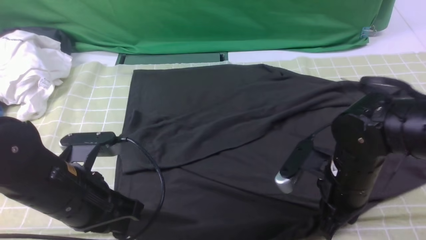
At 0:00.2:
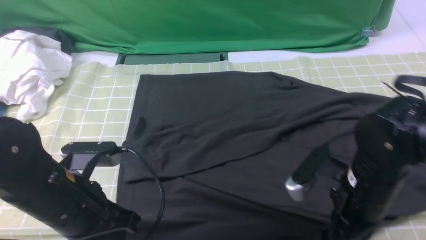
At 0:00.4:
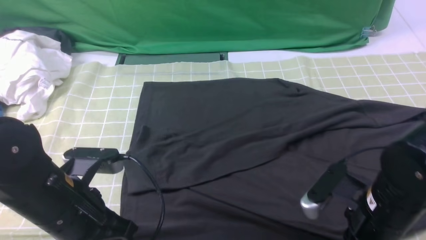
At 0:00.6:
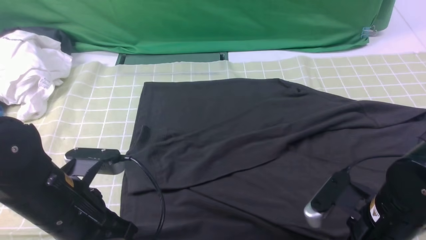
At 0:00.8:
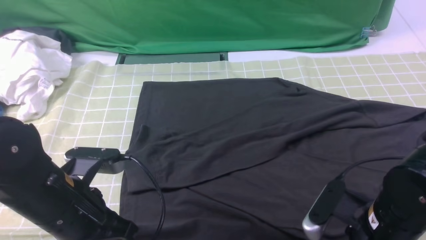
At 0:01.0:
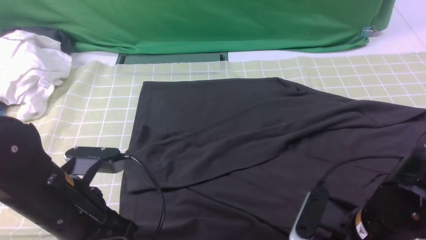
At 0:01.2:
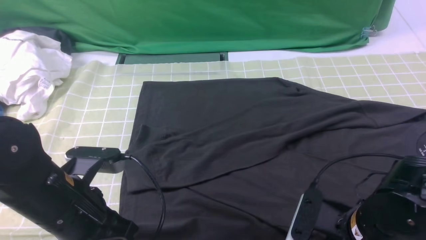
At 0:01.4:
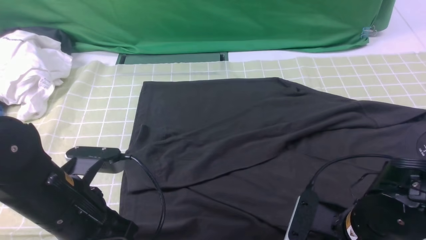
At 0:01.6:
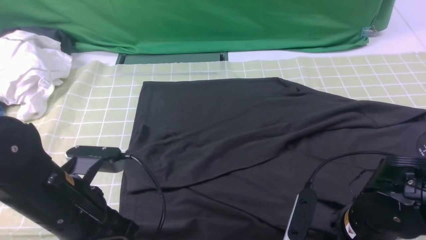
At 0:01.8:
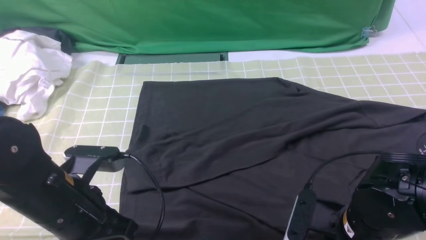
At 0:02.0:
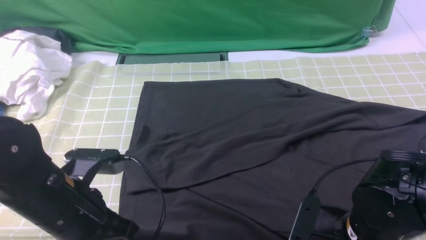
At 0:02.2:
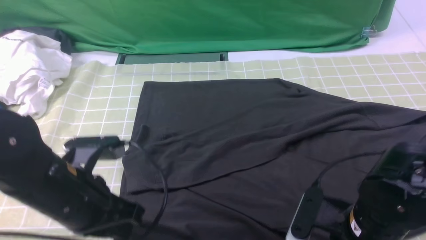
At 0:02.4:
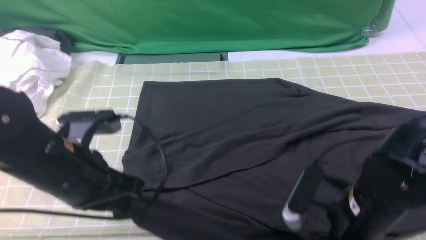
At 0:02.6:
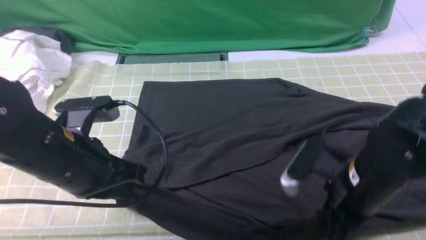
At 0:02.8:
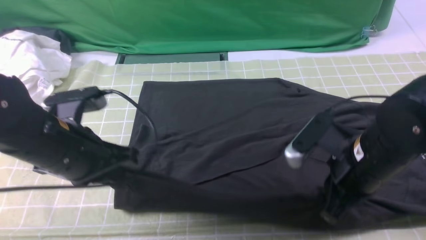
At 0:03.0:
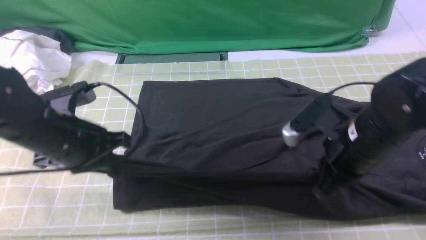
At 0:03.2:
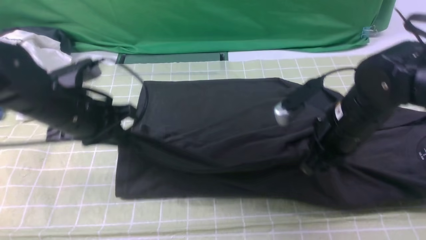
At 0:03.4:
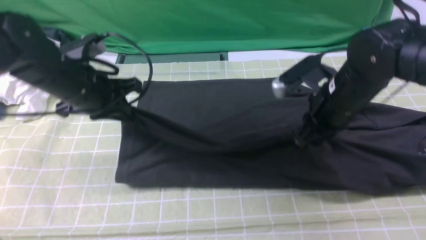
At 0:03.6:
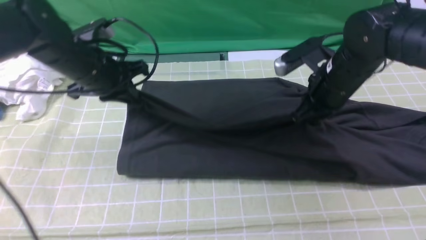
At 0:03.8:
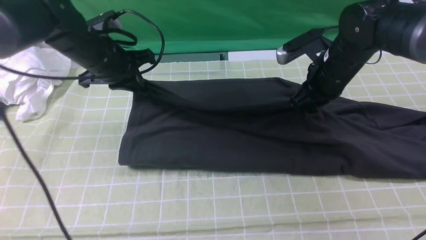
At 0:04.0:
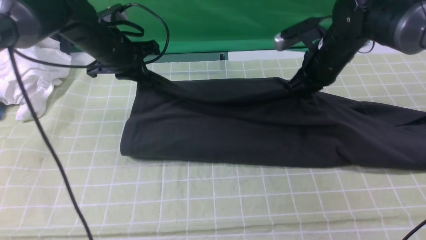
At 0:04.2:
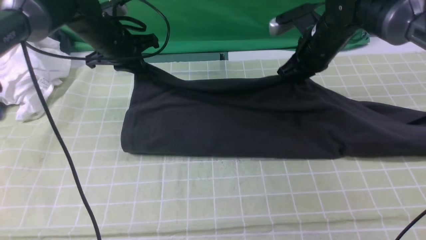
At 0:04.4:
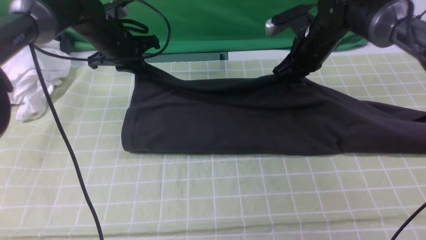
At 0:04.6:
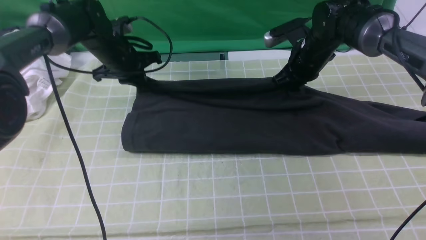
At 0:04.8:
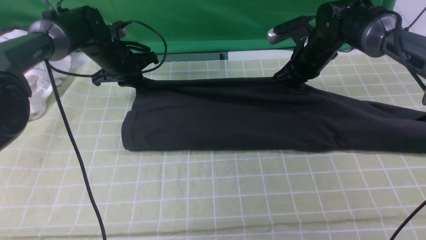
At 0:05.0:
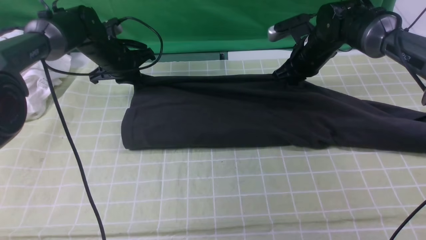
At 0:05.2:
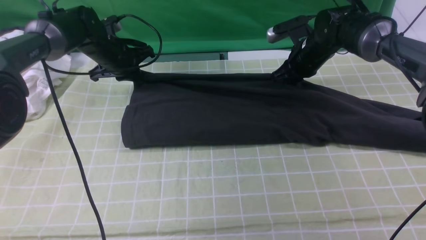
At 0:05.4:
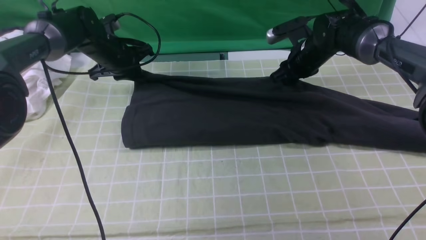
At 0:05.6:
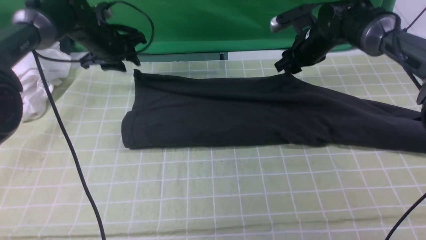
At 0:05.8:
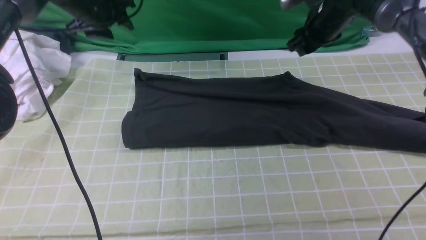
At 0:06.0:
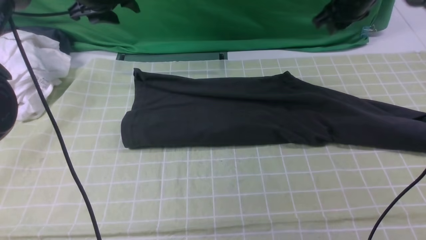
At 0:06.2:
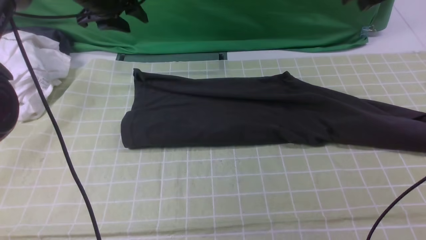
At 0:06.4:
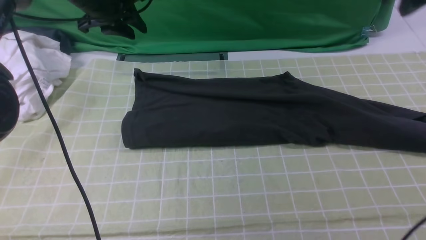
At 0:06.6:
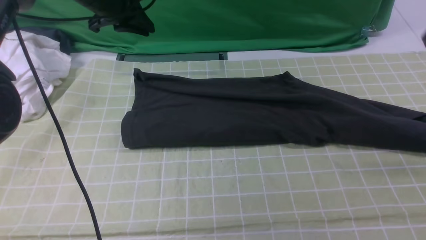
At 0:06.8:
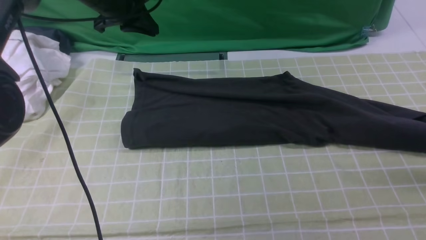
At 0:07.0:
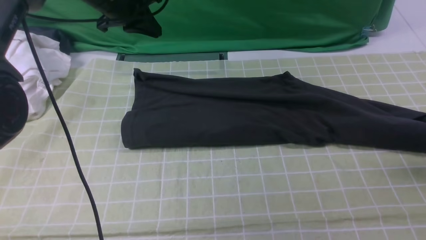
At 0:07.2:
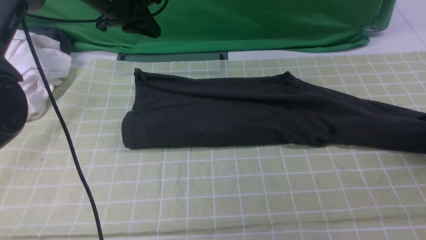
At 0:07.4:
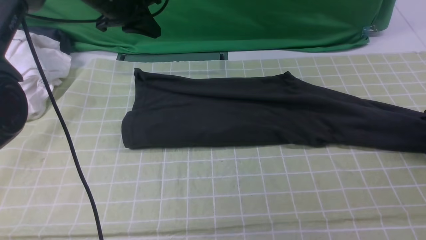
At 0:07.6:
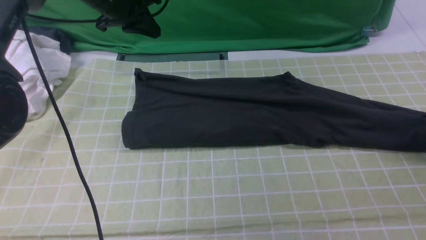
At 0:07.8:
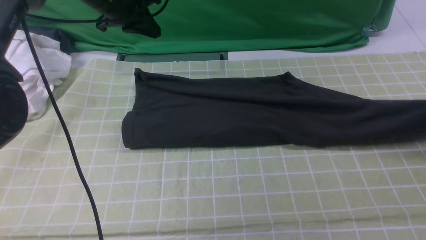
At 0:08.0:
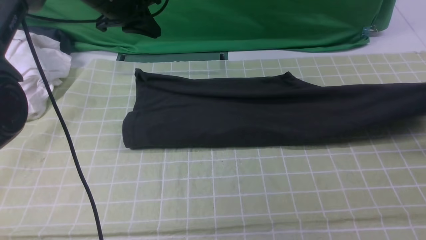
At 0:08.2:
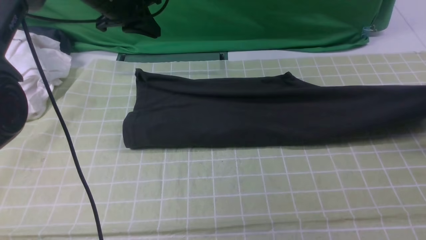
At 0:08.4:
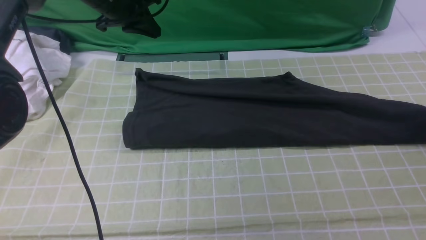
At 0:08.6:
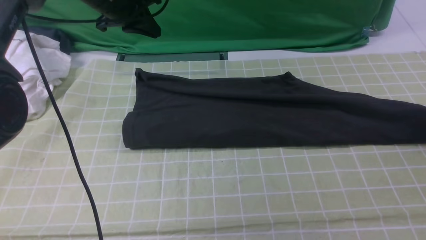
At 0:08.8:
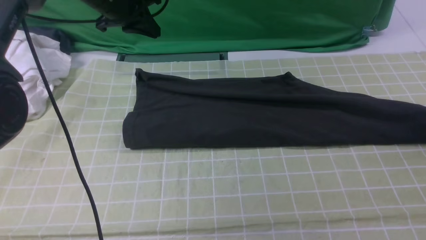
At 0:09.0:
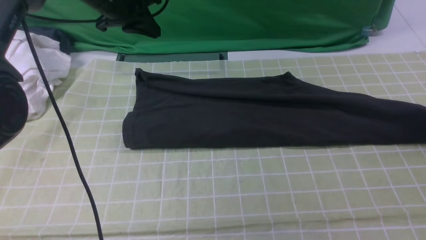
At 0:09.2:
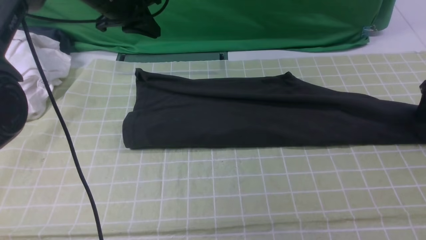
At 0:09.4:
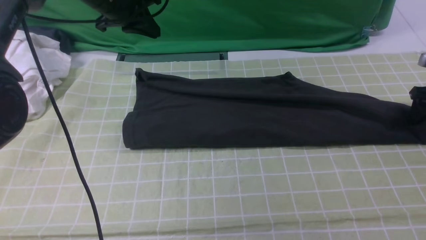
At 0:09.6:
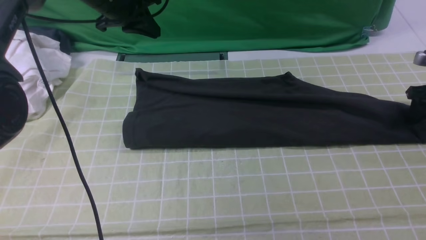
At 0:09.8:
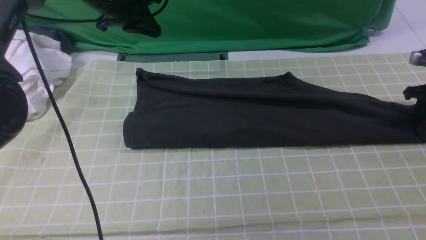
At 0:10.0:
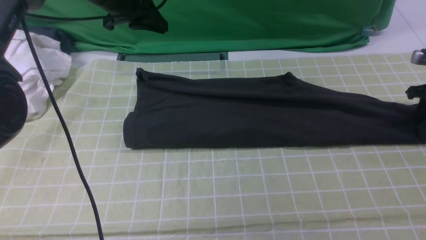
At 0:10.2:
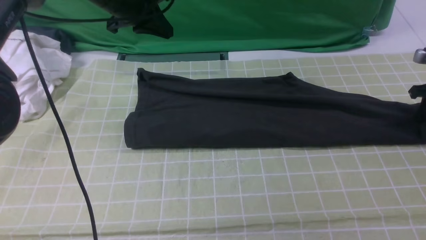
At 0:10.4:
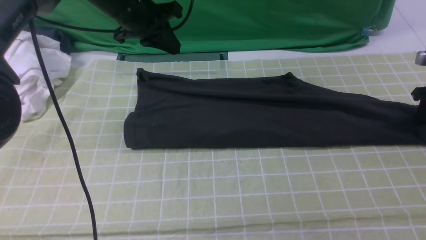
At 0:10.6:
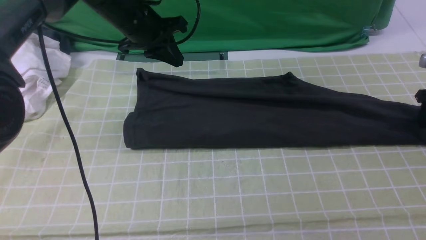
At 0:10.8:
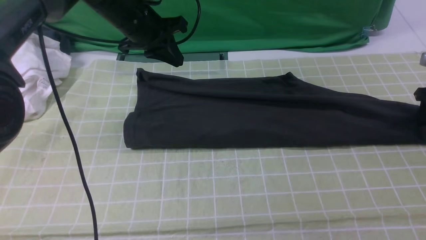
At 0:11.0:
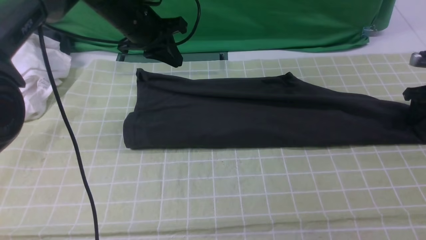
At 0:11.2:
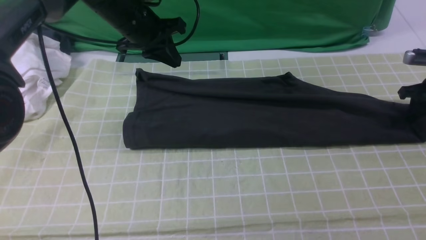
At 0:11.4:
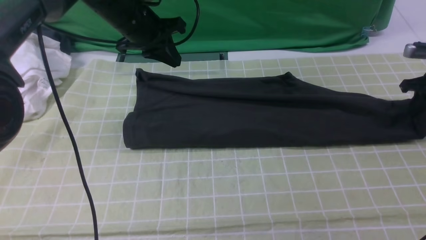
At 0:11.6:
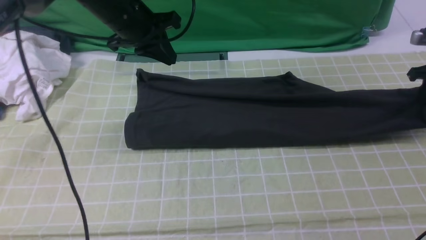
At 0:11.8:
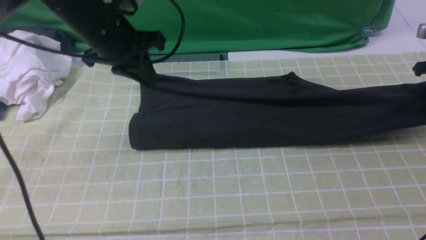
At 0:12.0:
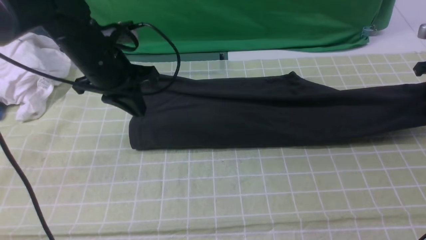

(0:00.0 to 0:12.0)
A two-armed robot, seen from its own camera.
Step, 0:00.0 - 0:02.0: use both arms simultaneously to clamp the lower edge of the clothing fabric.
Step, 0:02.2 - 0:05.6: use both arms to drag the lower edge of the fabric forward and fold it over the upper edge.
Step, 0:05.8 - 0:11.2: use the right arm to clamp the right edge of the fabric.
0:00.0 - 0:01.6: The right gripper goes some 5 cm backward, and opens, then closes once more.
0:01.6 - 0:03.0: The left gripper travels forward by about 10 cm; the right gripper travels forward and upward by roughly 10 cm.
0:03.0 - 0:04.4: Both grippers travel together forward, some 20 cm.
0:04.4 - 0:06.0: The left gripper travels upward by some 10 cm, and opens. Meanwhile the right gripper moves upward and to the right, roughly 10 cm, and opens, then closes again.
0:06.0 - 0:07.6: The right gripper is displaced to the right, backward and downward by about 25 cm. The left gripper closes.
0:07.6 - 0:09.0: The right gripper opens up.
0:09.0 - 0:10.4: The right gripper shifts by some 5 cm, and closes and opens again.
0:10.4 - 0:12.0: The left gripper is displaced backward by some 10 cm. The right gripper heads upward, covering about 5 cm, and closes up.

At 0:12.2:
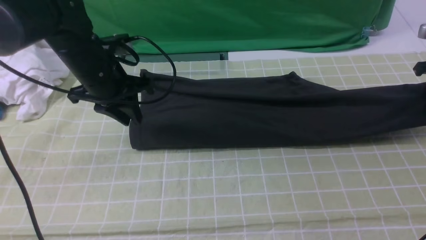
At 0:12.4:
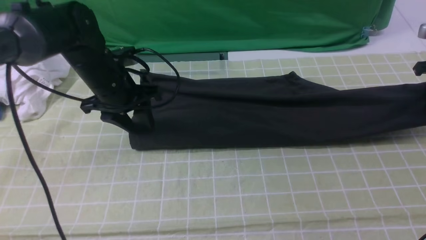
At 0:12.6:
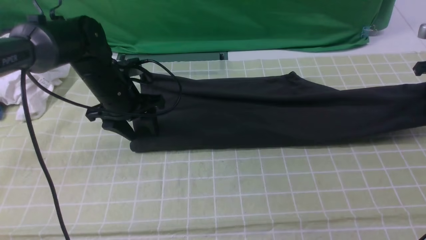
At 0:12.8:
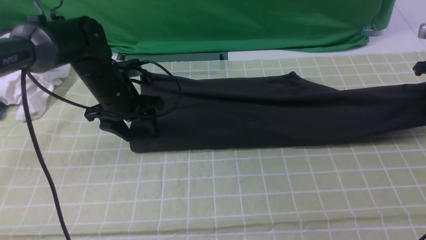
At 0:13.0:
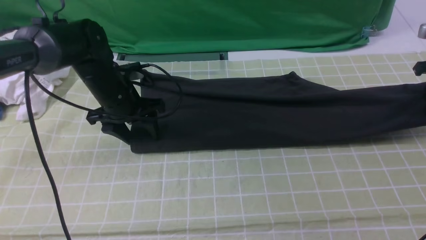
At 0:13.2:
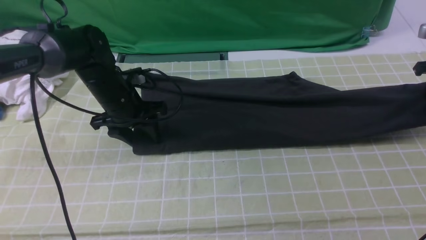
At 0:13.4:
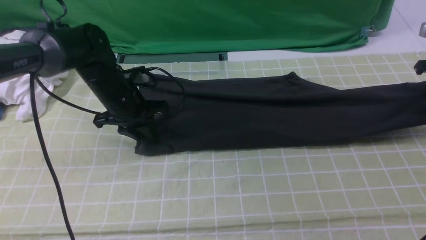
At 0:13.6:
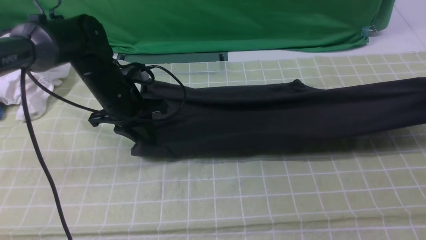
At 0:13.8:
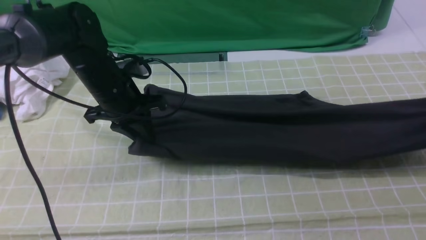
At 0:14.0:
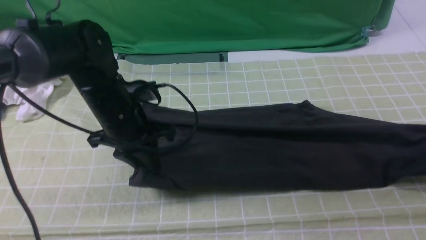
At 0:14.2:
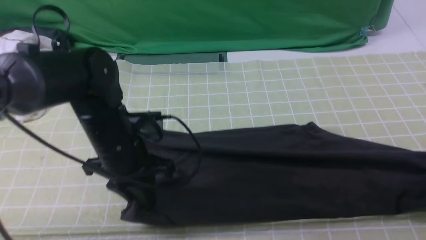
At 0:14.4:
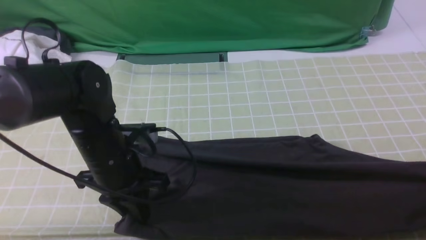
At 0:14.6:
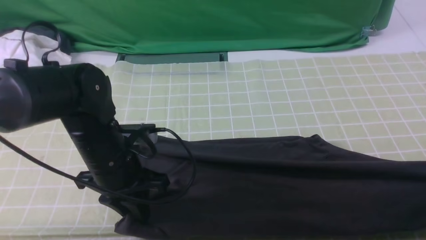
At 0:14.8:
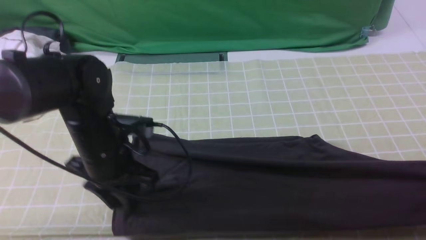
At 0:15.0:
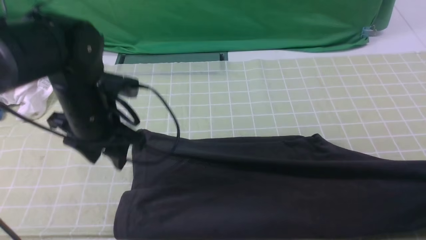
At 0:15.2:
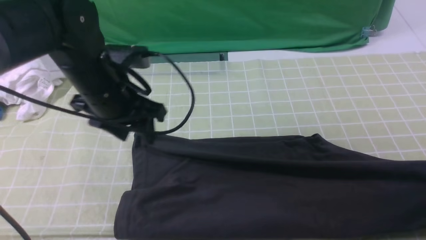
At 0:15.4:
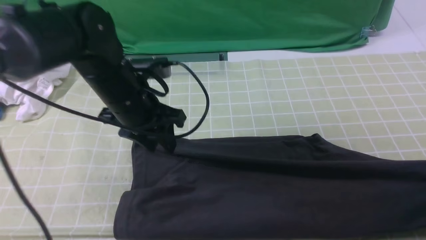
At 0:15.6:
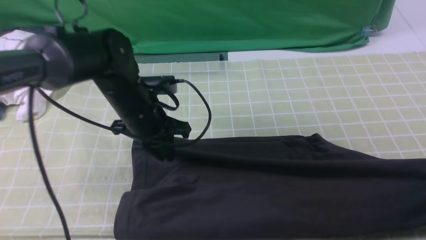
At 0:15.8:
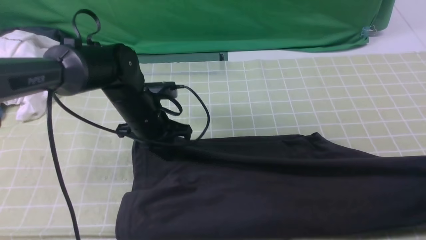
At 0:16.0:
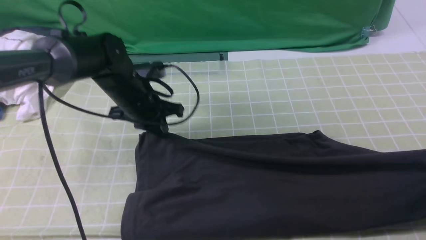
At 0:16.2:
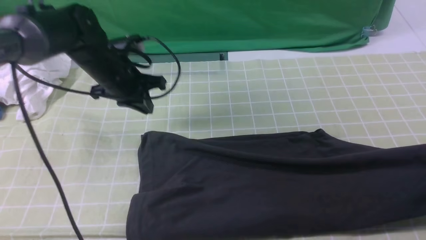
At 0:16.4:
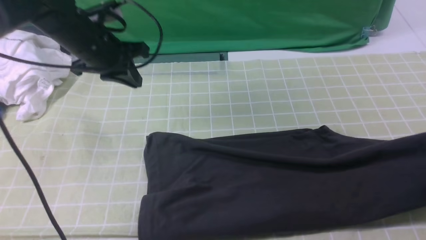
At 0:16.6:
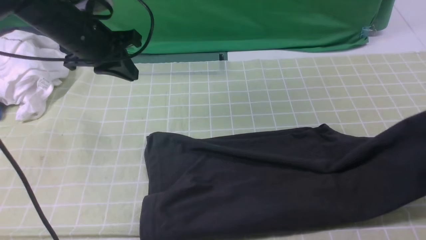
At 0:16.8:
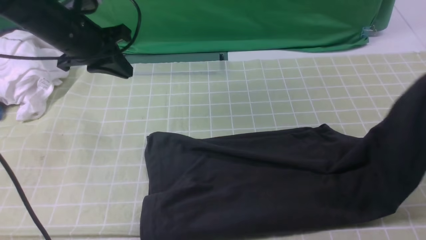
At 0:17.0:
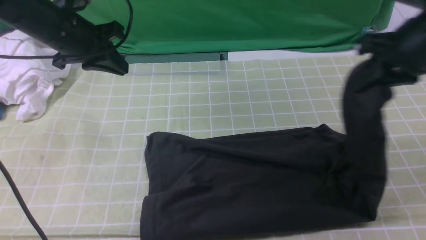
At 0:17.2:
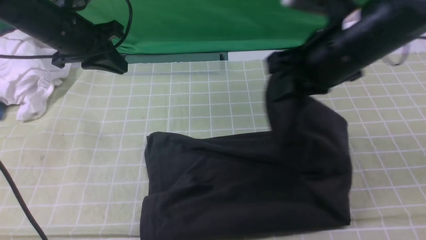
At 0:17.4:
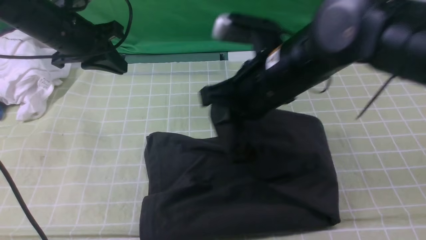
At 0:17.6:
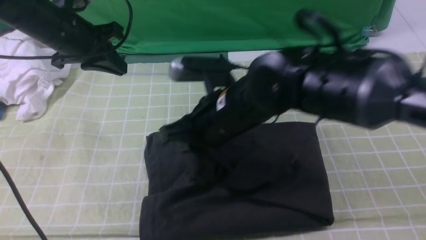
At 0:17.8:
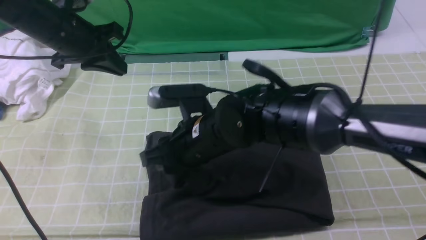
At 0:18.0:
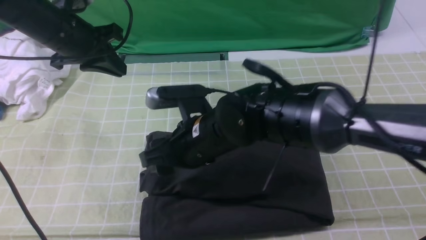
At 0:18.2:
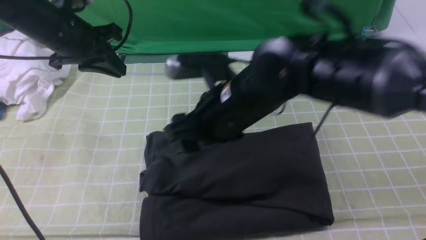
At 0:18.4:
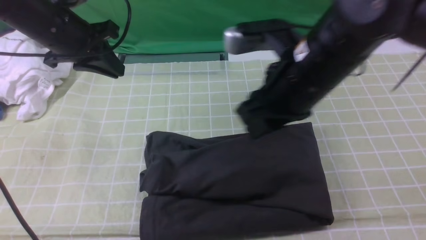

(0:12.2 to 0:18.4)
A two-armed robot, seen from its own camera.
Step, 0:12.2 - 0:18.0: use the right arm to drag the right edge of the fabric to the left and folds it over the left edge.
0:12.2 - 0:13.8: The left gripper opens, then closes once more. The right gripper heads backward, covering roughly 5 cm.
0:13.8 - 0:15.4: The right gripper travels backward by some 10 cm. Meanwhile the left gripper goes backward and returns, some 10 cm each way, and opens.
0:15.4 - 0:16.8: The left gripper travels to the left, forward and upward by roughly 15 cm, and closes. Meanwhile the right gripper shifts some 20 cm to the left and upward.
0:16.8 - 0:18.4: The right gripper shifts roughly 25 cm to the left, and opens its fingers.
